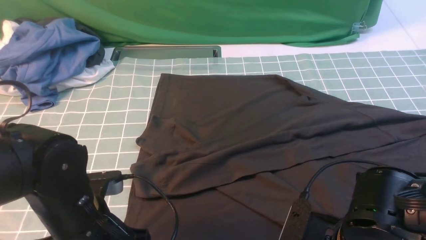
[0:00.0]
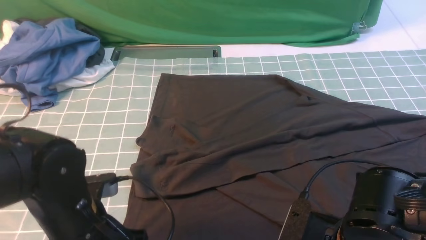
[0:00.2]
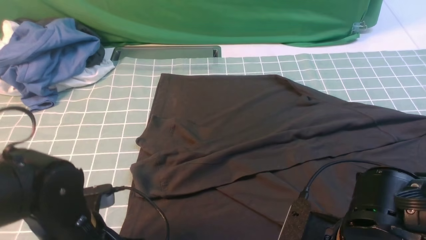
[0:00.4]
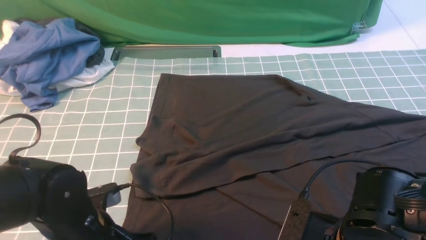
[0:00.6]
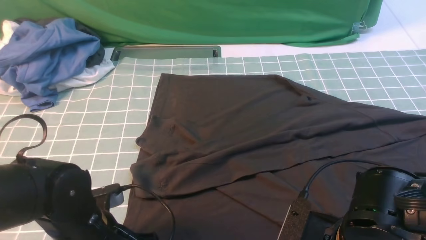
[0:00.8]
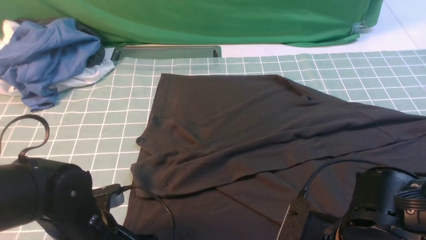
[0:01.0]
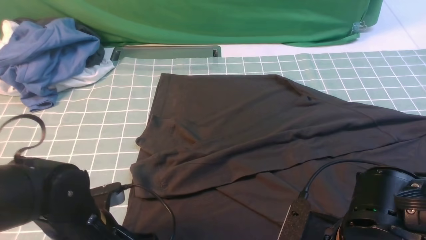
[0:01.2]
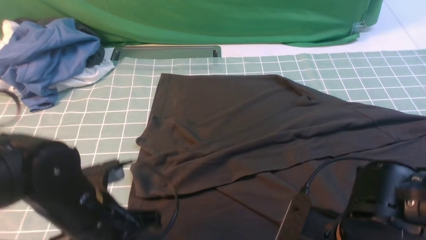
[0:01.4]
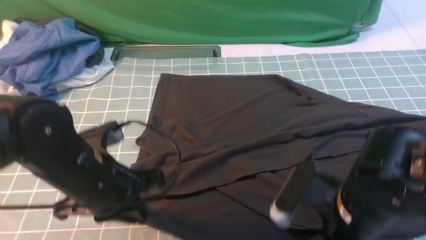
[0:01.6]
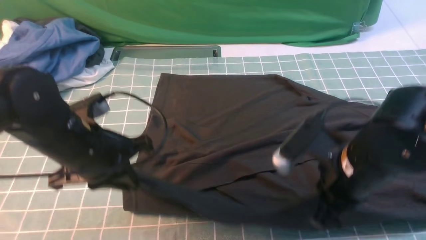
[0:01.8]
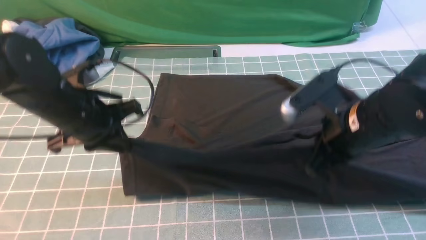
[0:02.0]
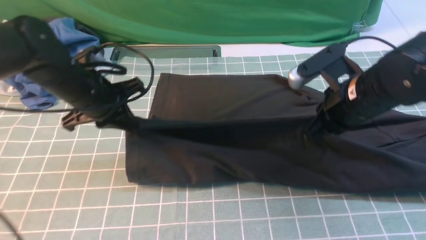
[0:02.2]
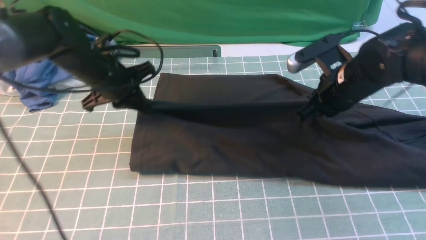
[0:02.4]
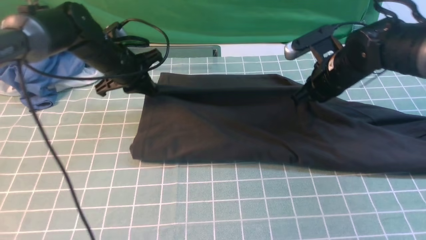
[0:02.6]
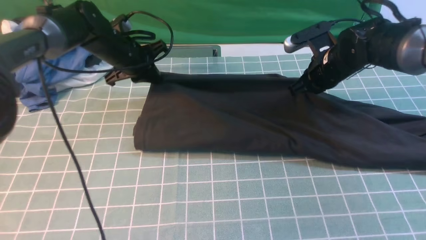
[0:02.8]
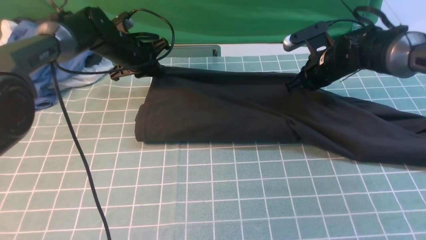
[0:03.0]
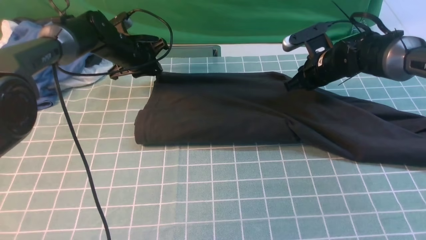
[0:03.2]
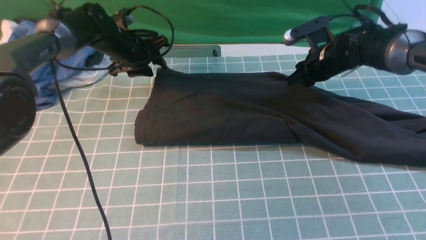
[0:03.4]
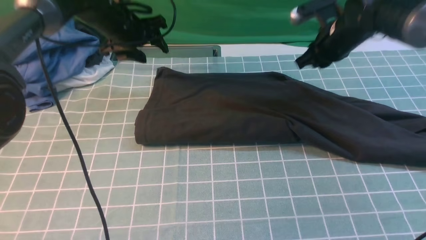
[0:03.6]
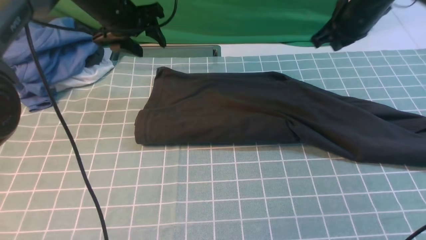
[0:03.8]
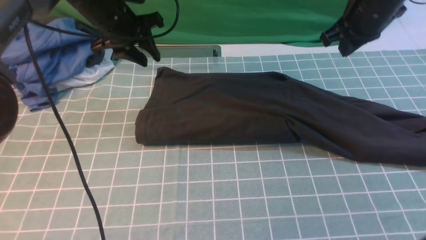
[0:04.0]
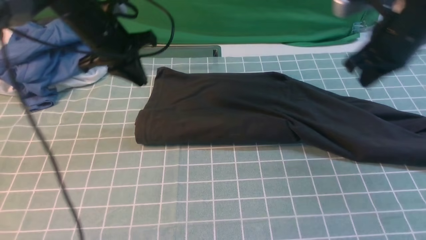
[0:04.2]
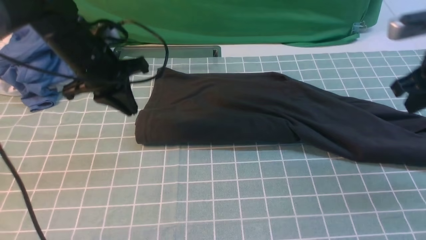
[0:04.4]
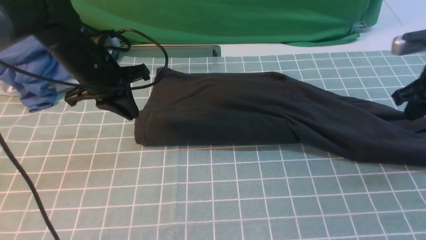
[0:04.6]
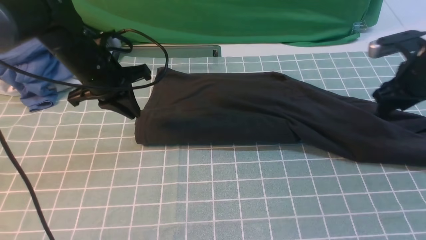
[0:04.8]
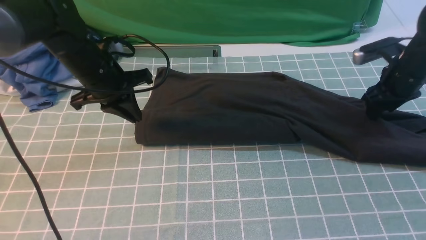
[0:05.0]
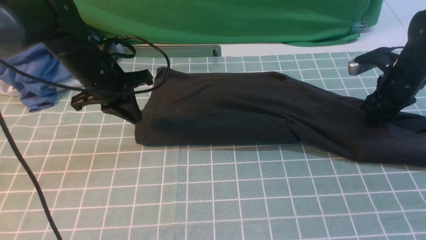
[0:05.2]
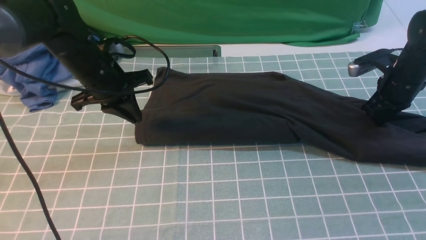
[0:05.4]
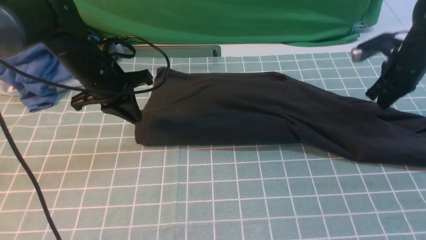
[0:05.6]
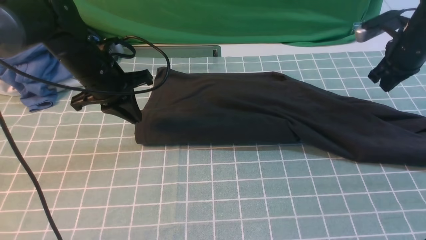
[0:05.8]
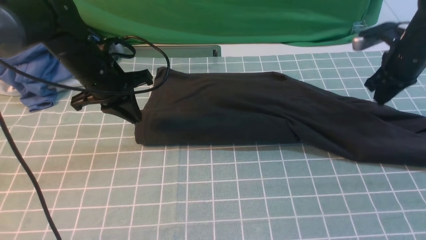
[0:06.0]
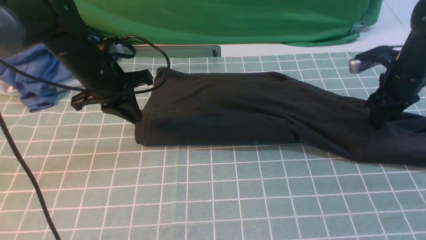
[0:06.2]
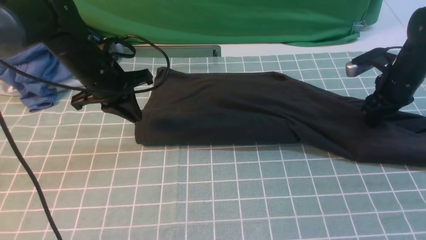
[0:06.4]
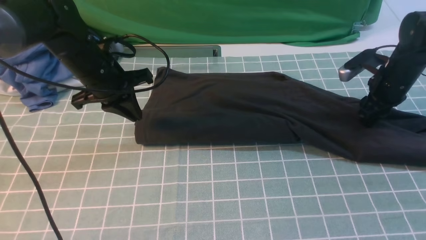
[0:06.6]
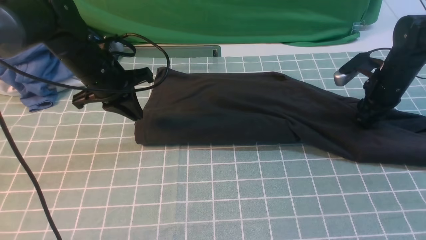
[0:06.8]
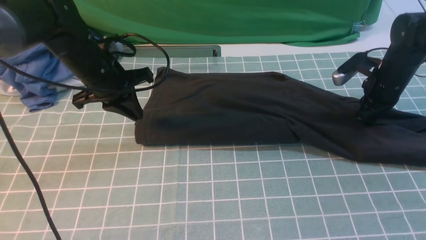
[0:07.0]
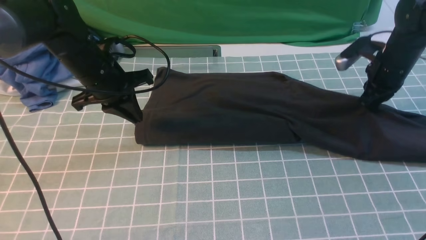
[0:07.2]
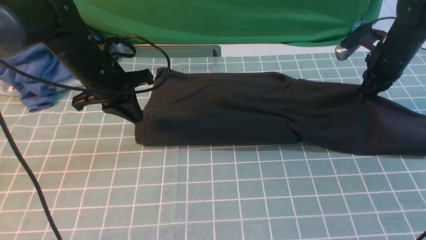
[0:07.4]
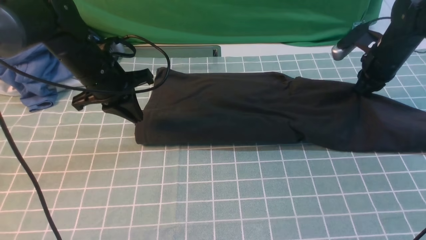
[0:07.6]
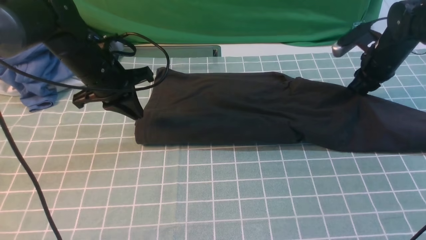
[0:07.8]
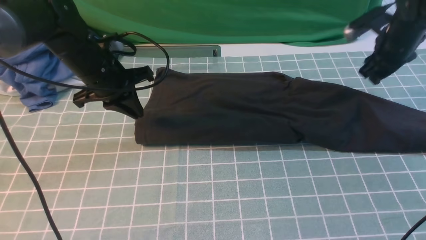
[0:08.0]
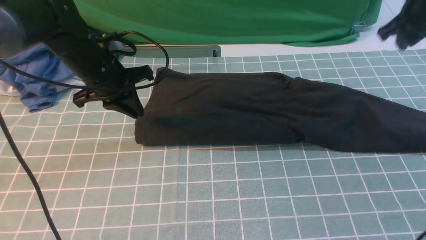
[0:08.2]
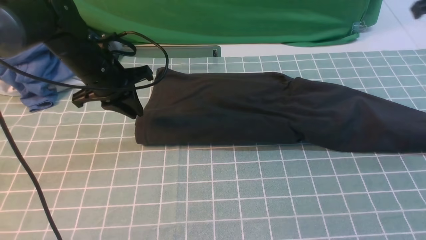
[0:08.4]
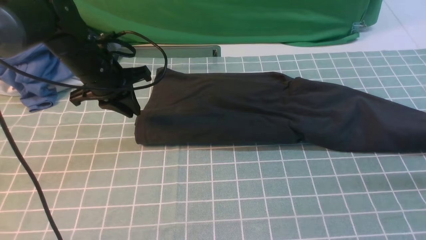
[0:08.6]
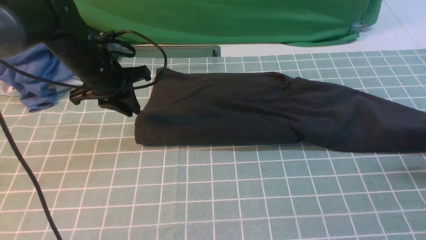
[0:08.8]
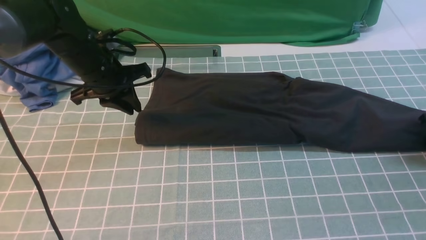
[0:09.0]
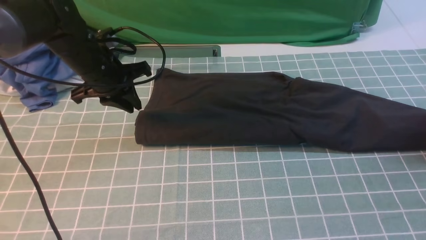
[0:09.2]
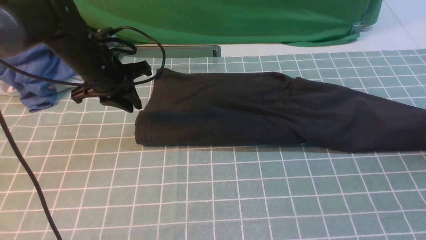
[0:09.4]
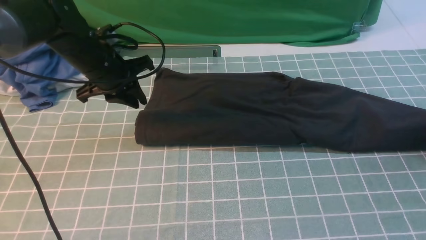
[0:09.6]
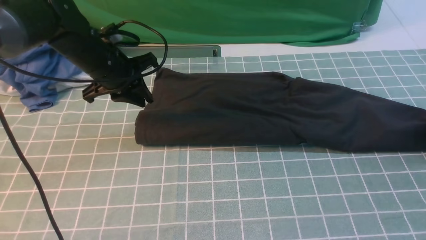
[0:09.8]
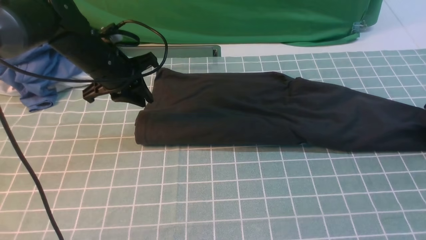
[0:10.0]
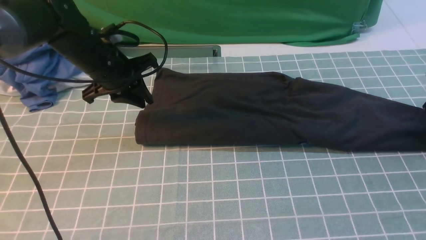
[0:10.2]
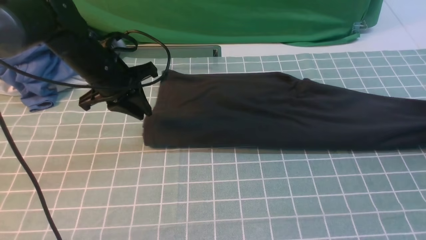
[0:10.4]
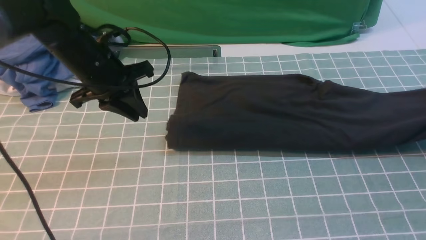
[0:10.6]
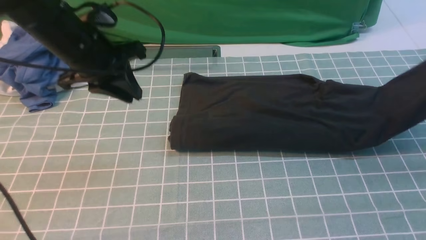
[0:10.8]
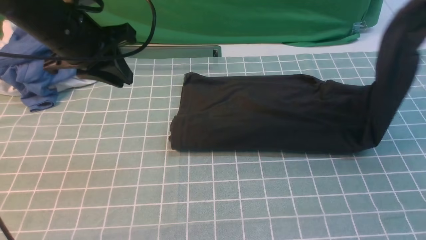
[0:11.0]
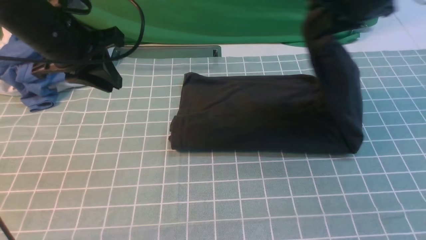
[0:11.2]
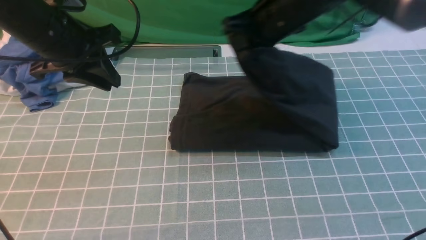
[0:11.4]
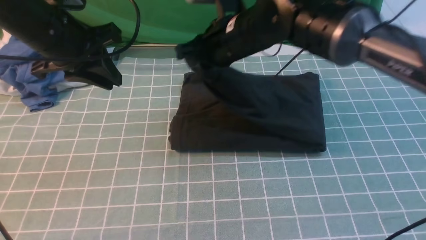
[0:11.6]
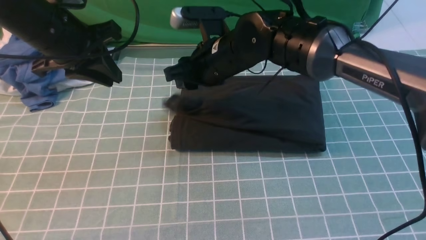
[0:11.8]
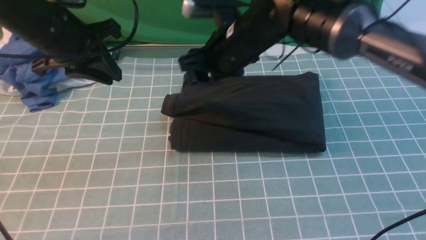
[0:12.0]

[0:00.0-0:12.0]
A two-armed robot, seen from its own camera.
Step, 0:00.2 to 0:03.4: use both arms to drag the lower edge of the fabric forward and fold it over the upper edge.
Step, 0:03.8 to 0:10.0: use the right arm to clamp the right edge of the fabric.
Step, 0:10.2 to 0:11.8: use the right arm to drag the right edge of the fabric to the left and folds it over the left edge.
0:00.0 to 0:01.6: The left gripper moves approximately 5 cm, and opens, then closes once more.
0:01.6 to 0:03.0: Both grippers move forward, some 30 cm.
0:03.0 to 0:04.4: The left gripper heads backward and upward, covering approximately 15 cm, and opens, then closes again. Meanwhile the right gripper goes about 20 cm backward, upward and to the right.
0:04.4 to 0:06.0: The right gripper heads forward and downward, covering approximately 10 cm, and opens and closes again.
0:06.0 to 0:07.6: The right gripper opens, then closes once more.
0:07.6 to 0:09.0: The right gripper goes some 15 cm to the right and backward, reaches about 15 cm upward, then returns, and opens up.
0:09.0 to 0:10.4: The right gripper goes up and down, some 5 cm each way, reversing 2 times, and closes its fingers.
0:10.4 to 0:12.0: The right gripper moves to the left, some 40 cm, and opens. The left gripper goes about 10 cm upward.

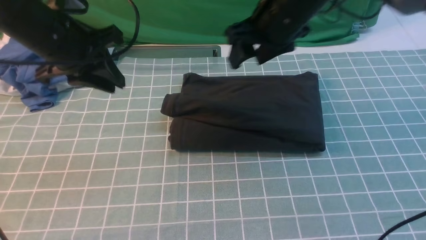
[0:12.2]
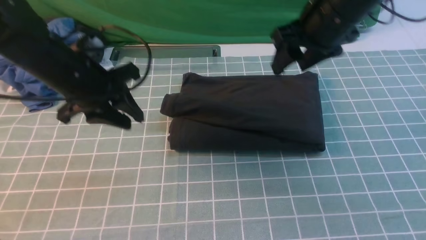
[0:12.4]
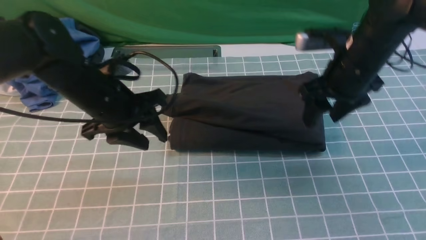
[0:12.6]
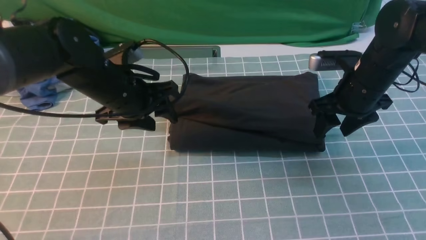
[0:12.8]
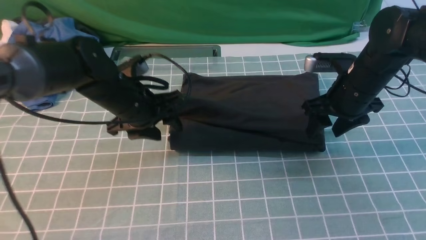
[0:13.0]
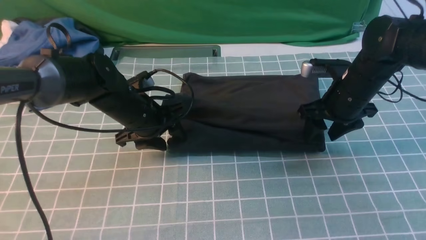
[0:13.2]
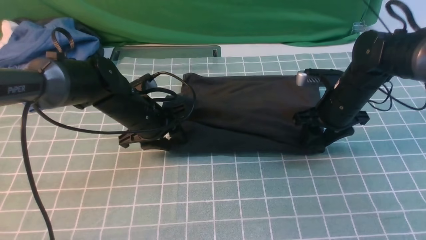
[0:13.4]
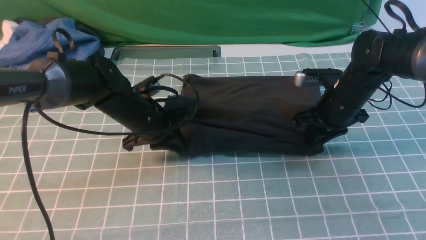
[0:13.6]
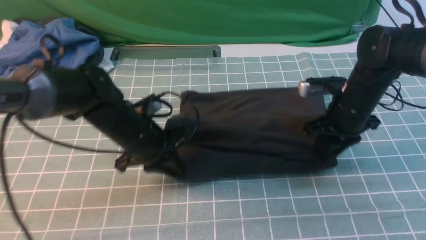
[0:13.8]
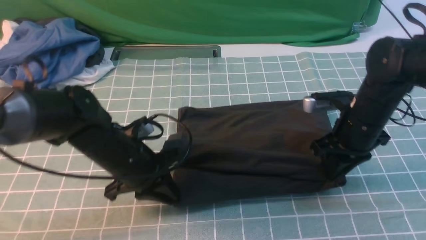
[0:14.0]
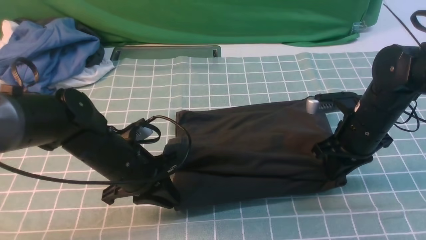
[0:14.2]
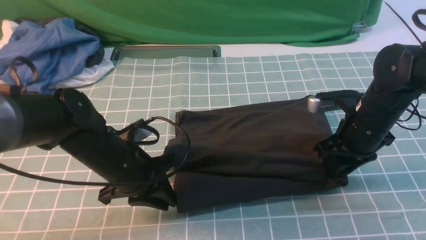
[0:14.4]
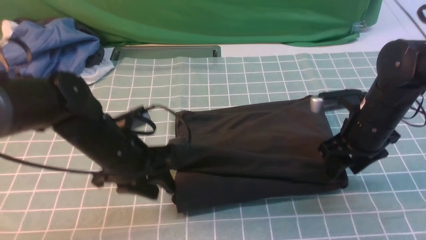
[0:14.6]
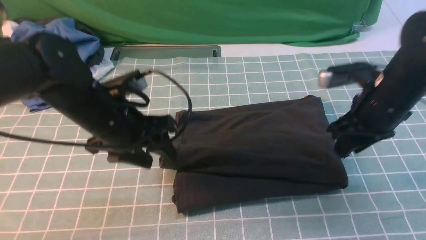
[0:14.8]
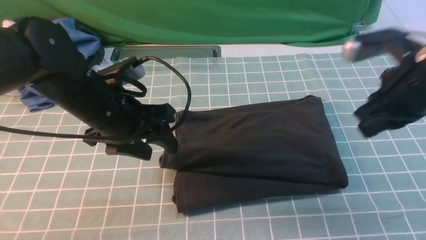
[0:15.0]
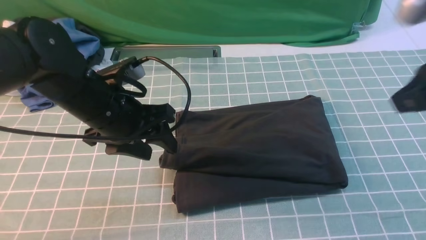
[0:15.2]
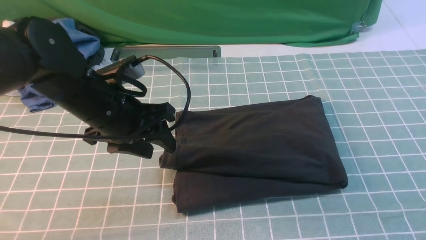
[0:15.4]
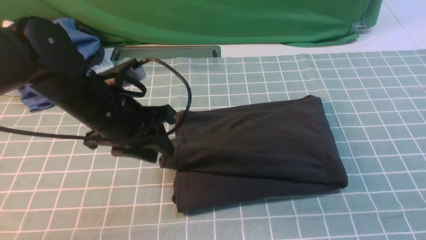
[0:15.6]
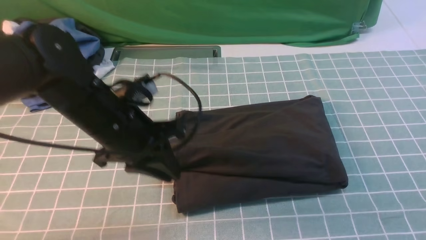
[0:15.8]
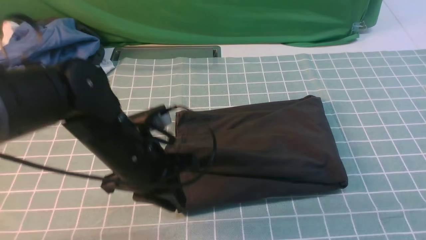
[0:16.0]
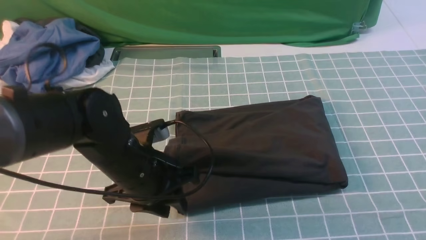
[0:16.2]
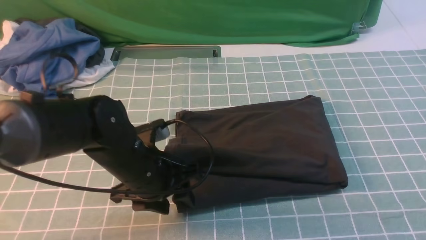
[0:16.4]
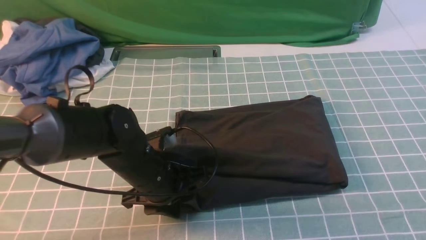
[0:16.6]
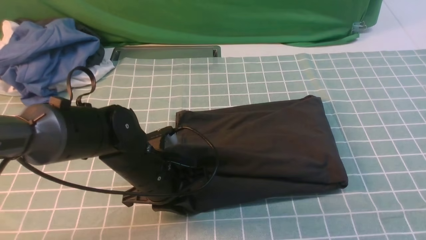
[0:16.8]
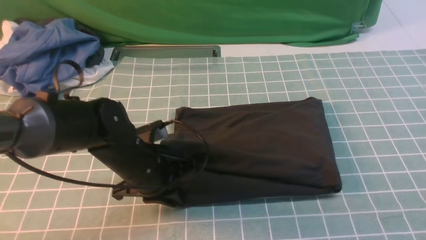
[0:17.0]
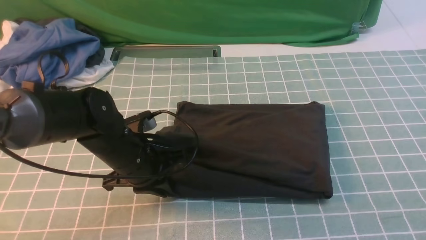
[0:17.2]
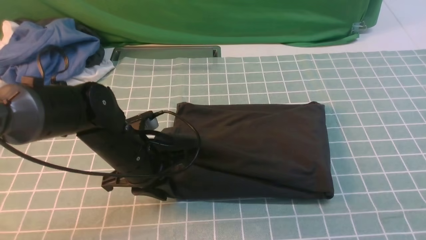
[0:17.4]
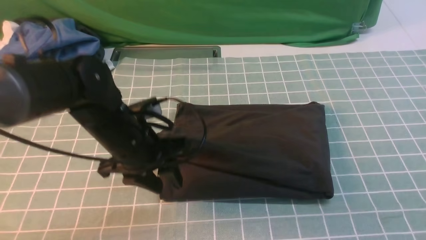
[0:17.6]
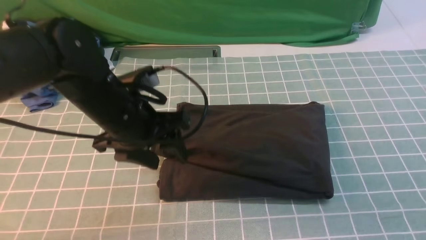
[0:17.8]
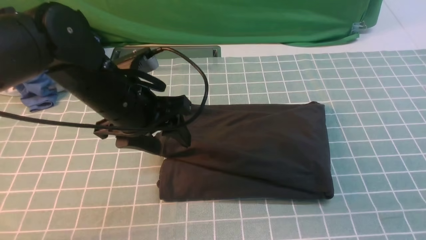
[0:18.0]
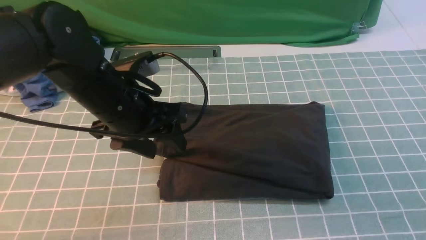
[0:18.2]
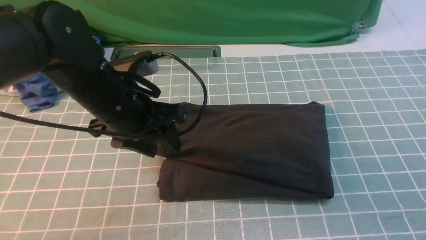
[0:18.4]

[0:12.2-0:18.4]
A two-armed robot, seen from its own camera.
0:12.2 to 0:13.8: Both grippers move downward and to the right, roughly 15 cm. The left gripper opens and closes again. The right gripper closes.
0:13.8 to 0:15.4: The right gripper shifts roughly 35 cm upward and backward, and opens, then closes once more. The left gripper is displaced upward by about 10 cm, and opens.
0:15.4 to 0:16.8: The right gripper travels backward by about 5 cm. Meanwhile the left gripper travels downward by roughly 10 cm, and closes its fingers.
0:16.8 to 0:18.4: The left gripper goes roughly 10 cm upward, and opens, while the right gripper is displaced downward by approximately 10 cm.
